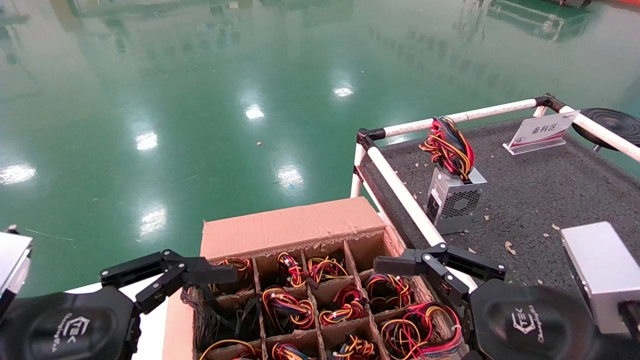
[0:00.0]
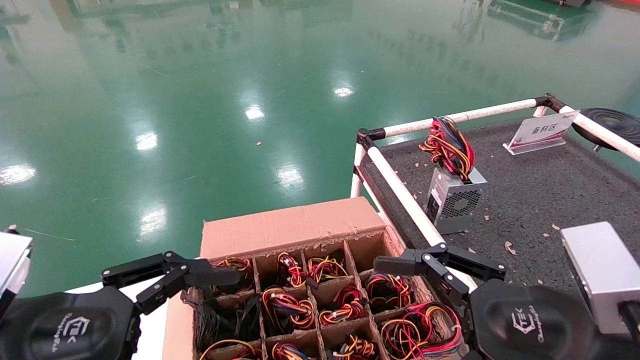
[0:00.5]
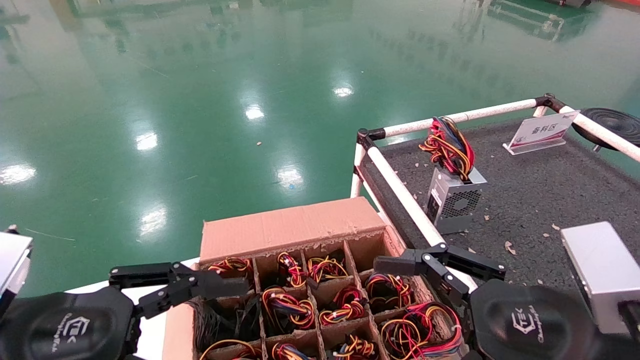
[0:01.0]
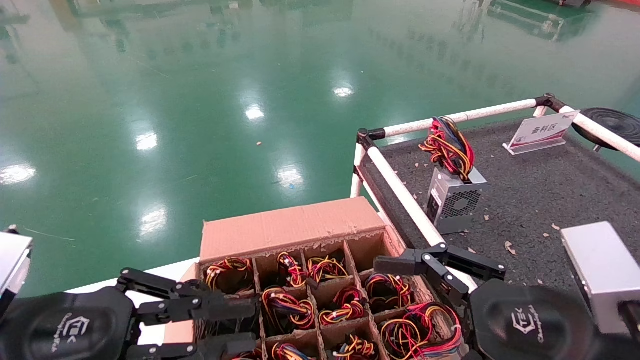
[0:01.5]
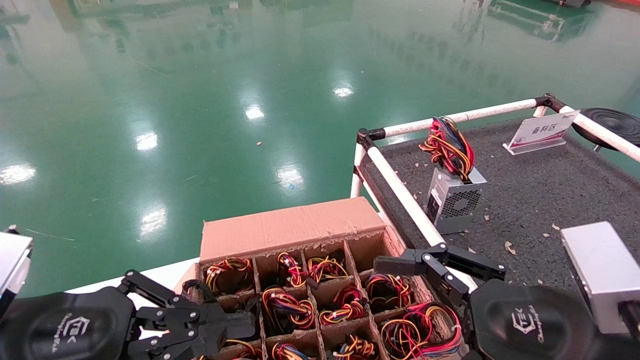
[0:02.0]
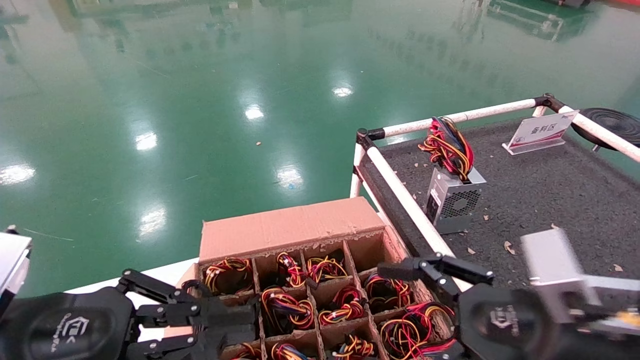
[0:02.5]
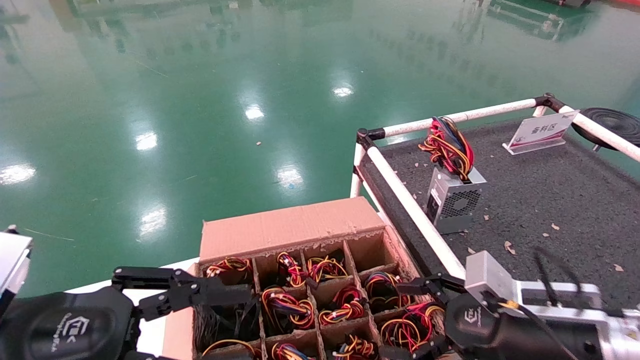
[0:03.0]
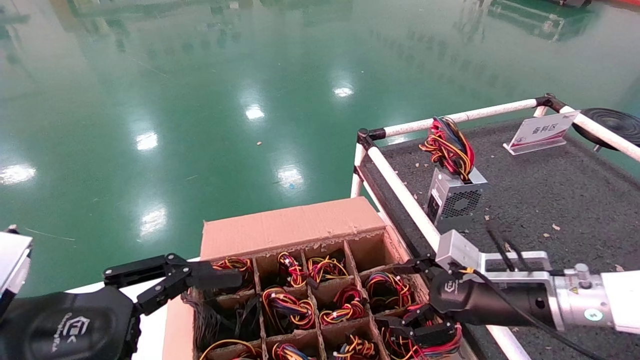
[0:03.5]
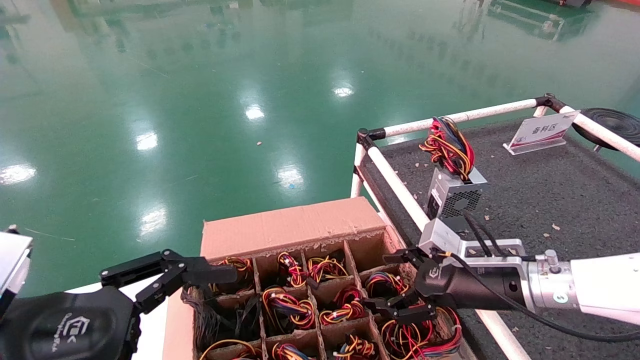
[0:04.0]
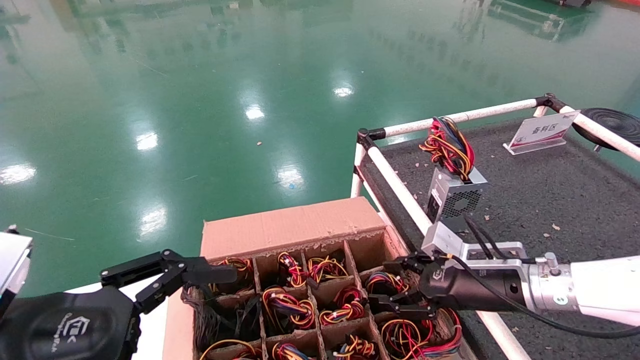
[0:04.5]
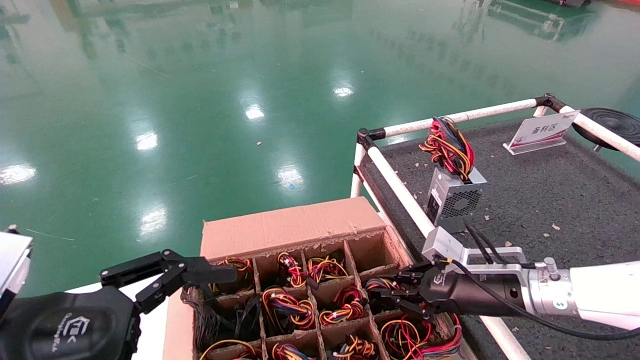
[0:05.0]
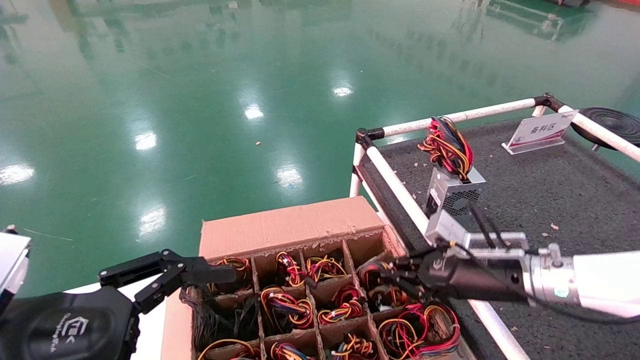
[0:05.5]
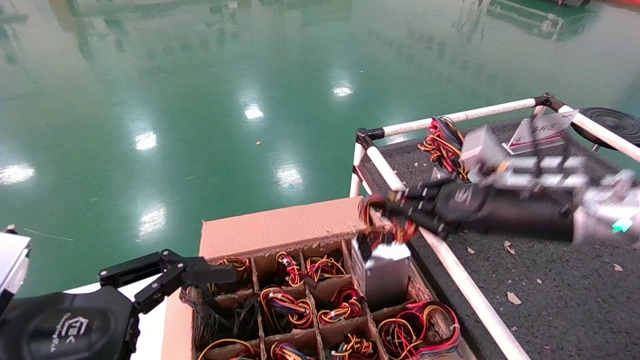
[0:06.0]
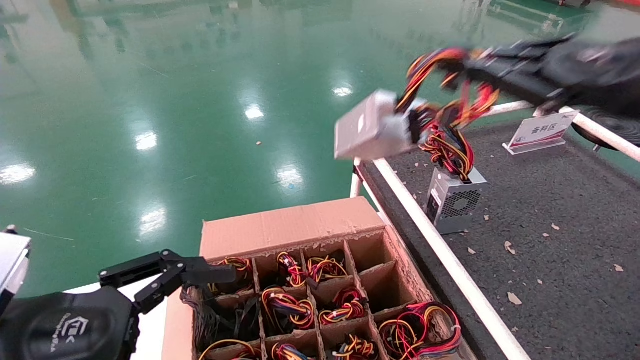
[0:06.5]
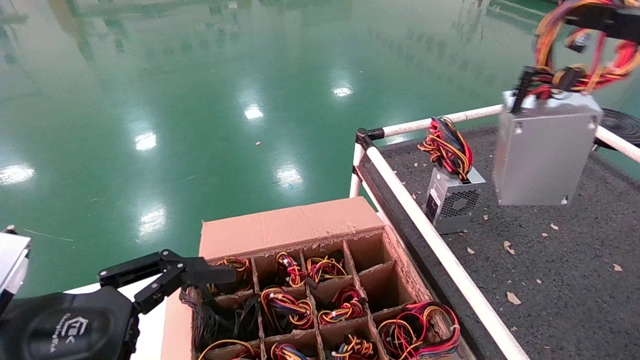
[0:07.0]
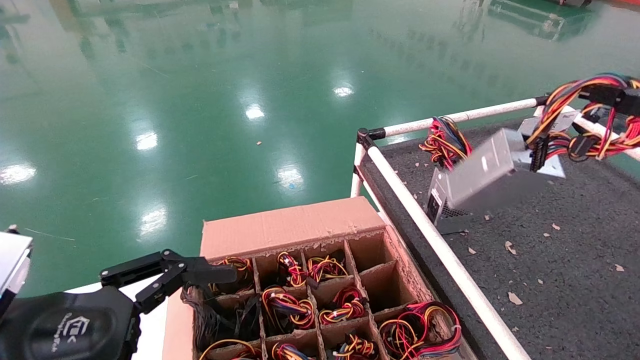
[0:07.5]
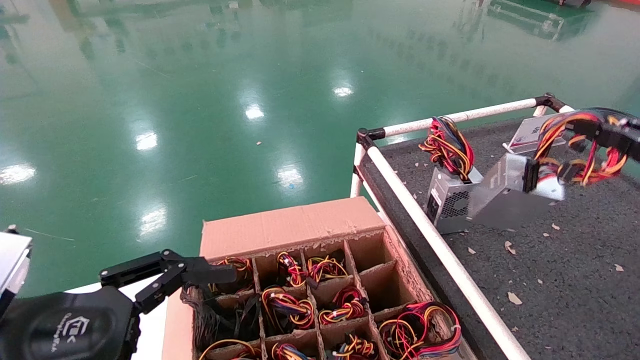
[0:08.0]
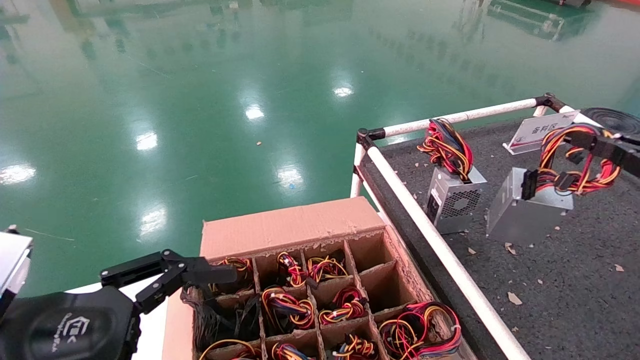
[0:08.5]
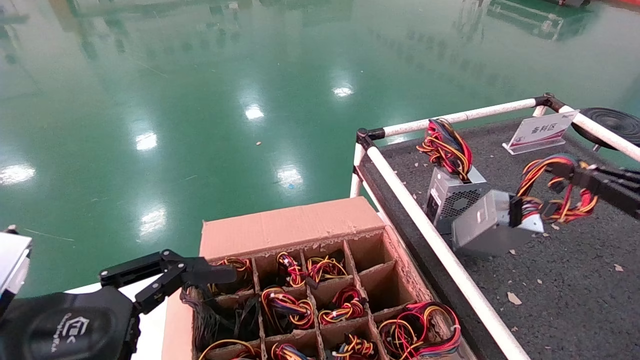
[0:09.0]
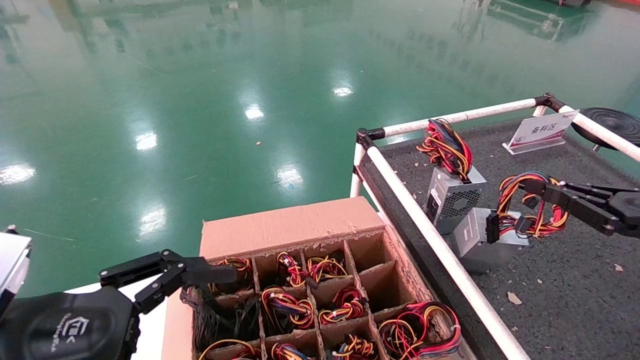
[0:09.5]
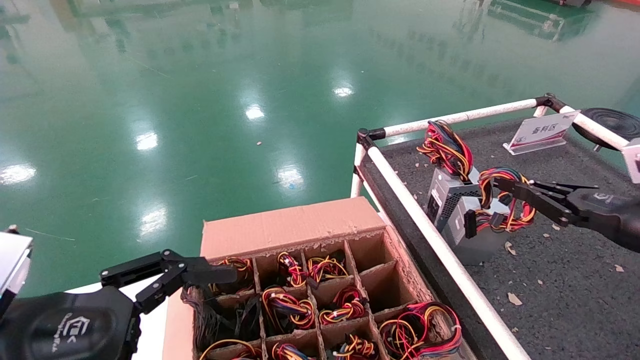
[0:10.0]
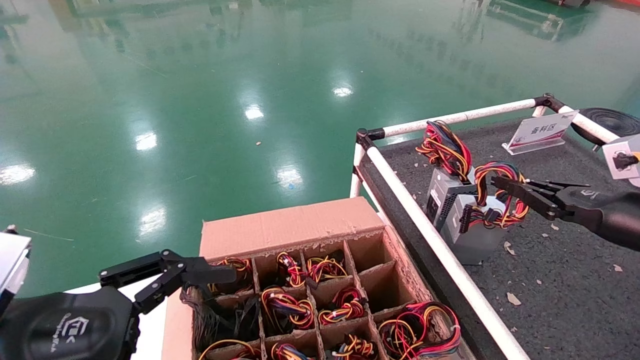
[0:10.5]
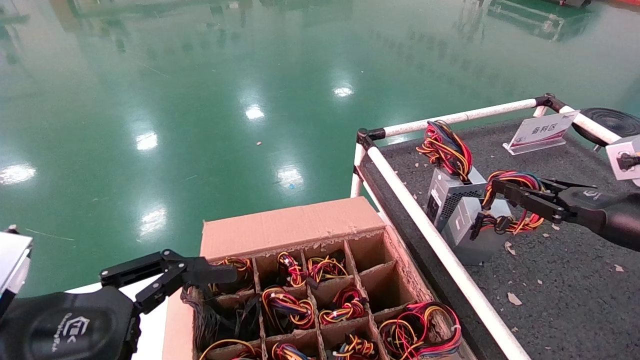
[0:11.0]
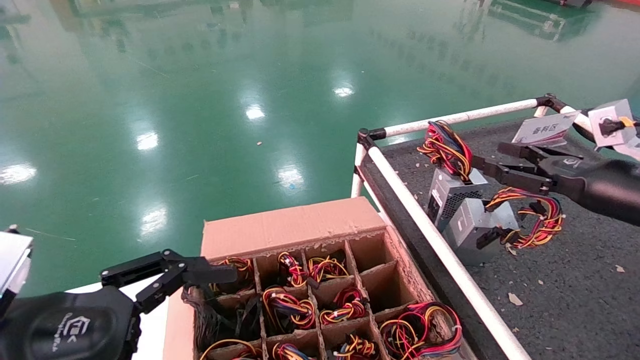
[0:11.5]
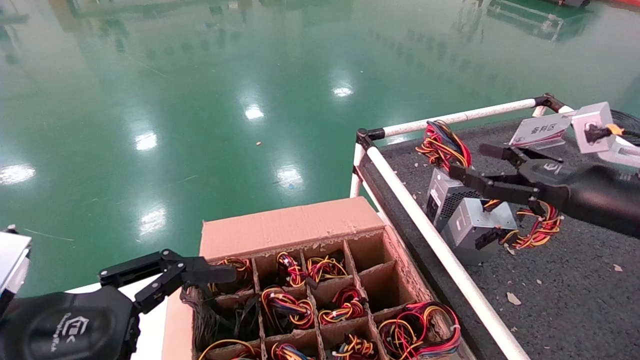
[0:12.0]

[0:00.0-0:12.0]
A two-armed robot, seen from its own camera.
Step, 0:03.0 to 0:05.5: Grab and lift the power supply from the large box.
Step, 0:06.0 to 0:11.0: Place the power supply on the operating table.
0:00.0 to 0:02.0: The left gripper closes up.
0:02.0 to 0:04.0: The left gripper opens up, while the right gripper heads forward, covering some 20 cm.
0:04.0 to 0:06.0: The right gripper moves upward, some 15 cm, and closes.
0:06.0 to 0:08.0: The right gripper travels to the right and backward by approximately 20 cm.
0:08.0 to 0:10.0: The right gripper goes approximately 10 cm forward and downward.
0:10.0 to 0:12.0: The right gripper moves to the left, roughly 5 cm, and opens.

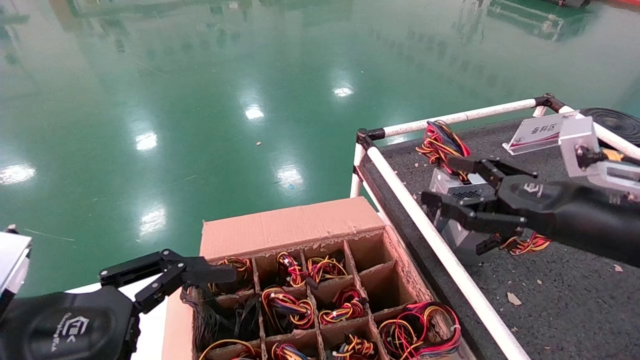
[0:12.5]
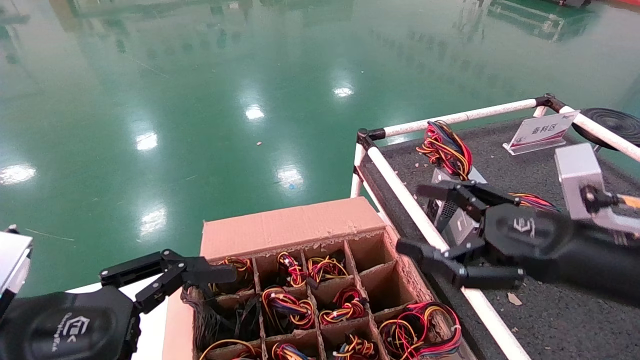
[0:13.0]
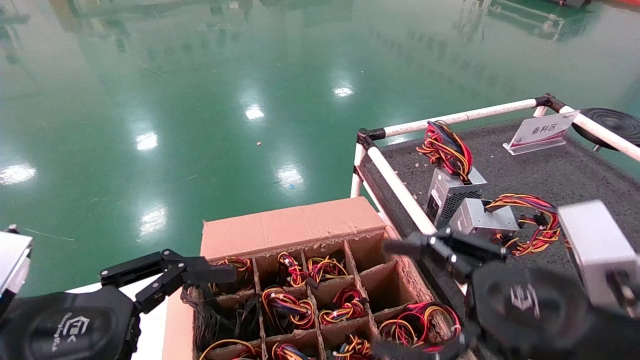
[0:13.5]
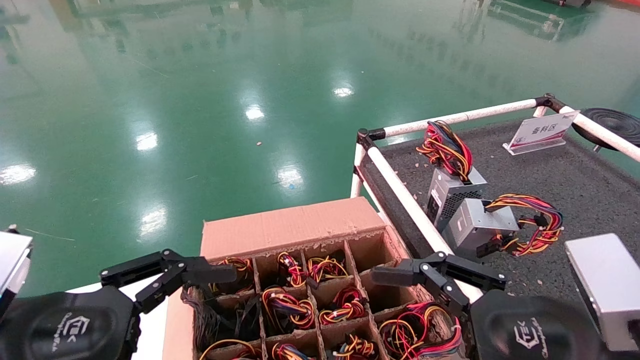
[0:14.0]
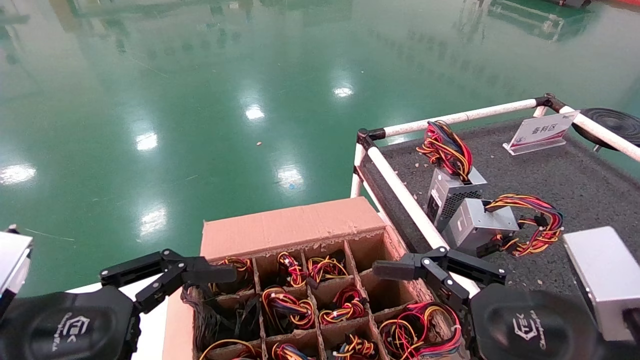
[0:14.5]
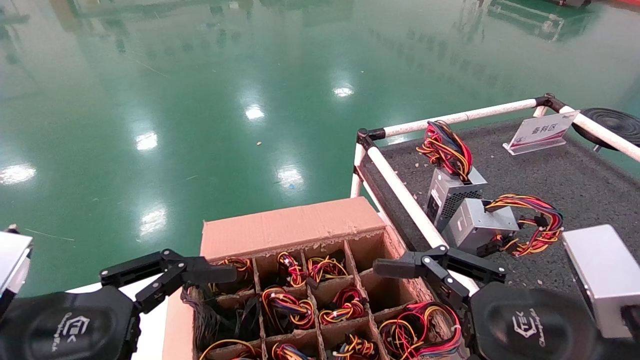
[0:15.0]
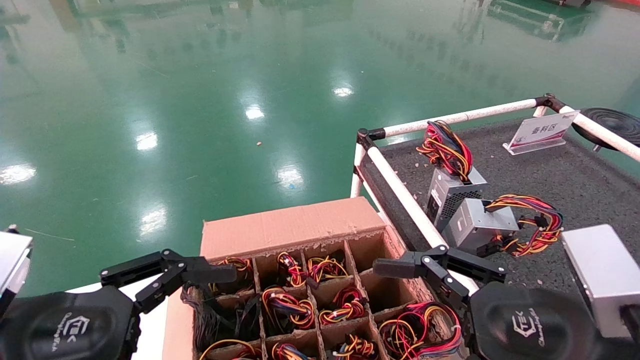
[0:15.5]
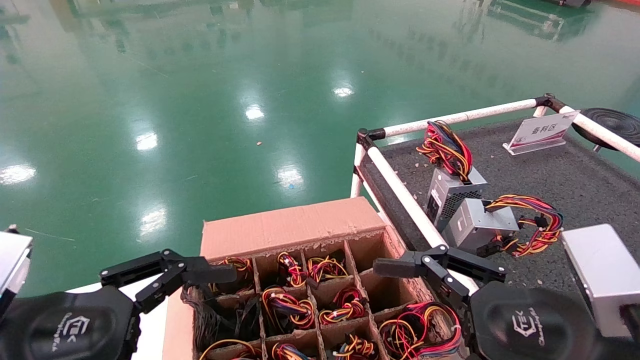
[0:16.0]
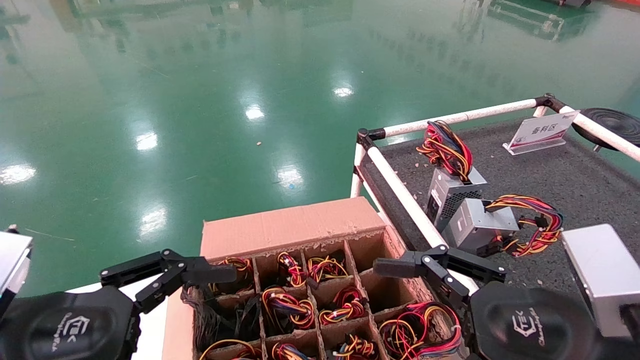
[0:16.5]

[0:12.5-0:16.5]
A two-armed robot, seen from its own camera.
0:12.5 to 0:14.5: The right gripper moves backward and to the left, some 15 cm.
0:14.5 to 0:16.5: Both grippers stay about where they are.

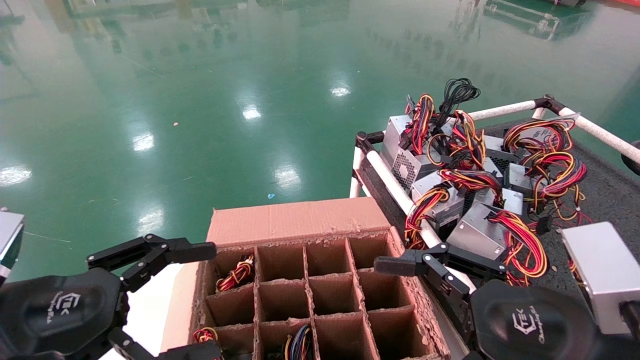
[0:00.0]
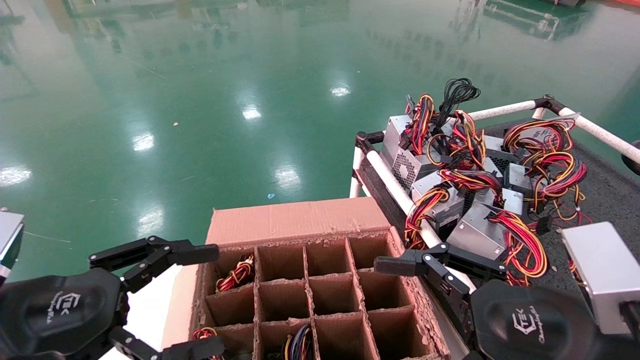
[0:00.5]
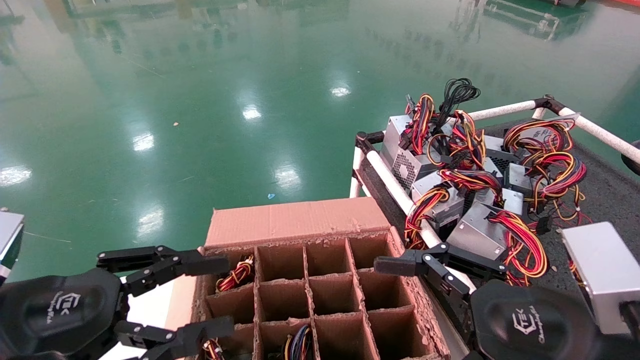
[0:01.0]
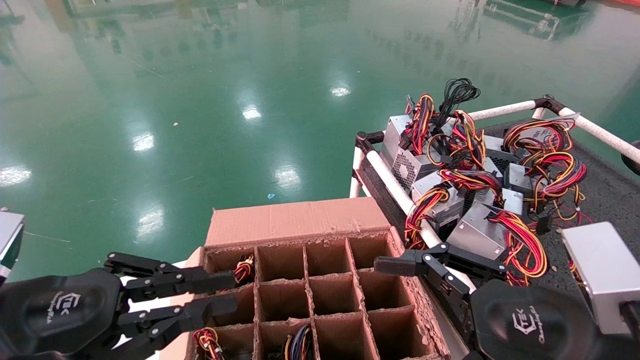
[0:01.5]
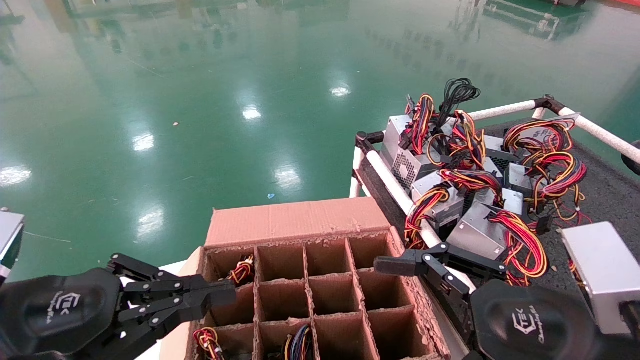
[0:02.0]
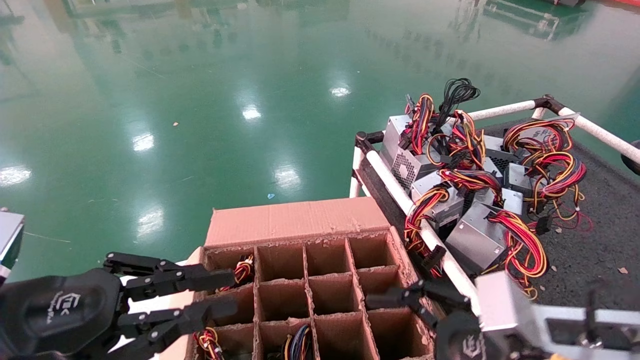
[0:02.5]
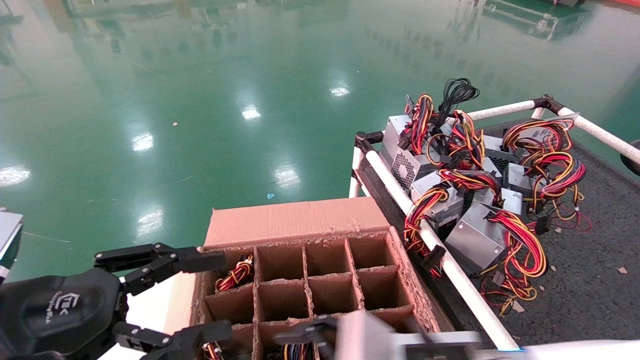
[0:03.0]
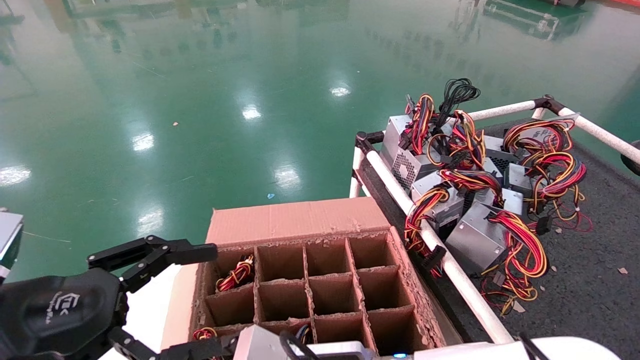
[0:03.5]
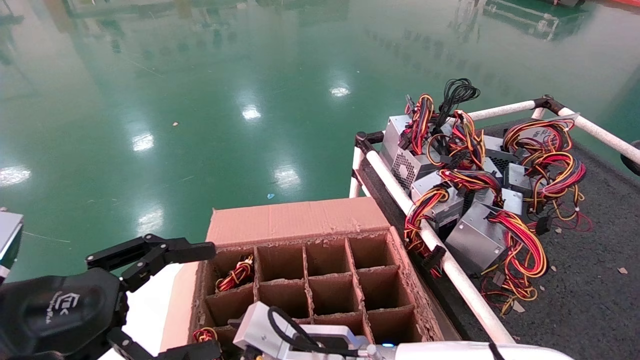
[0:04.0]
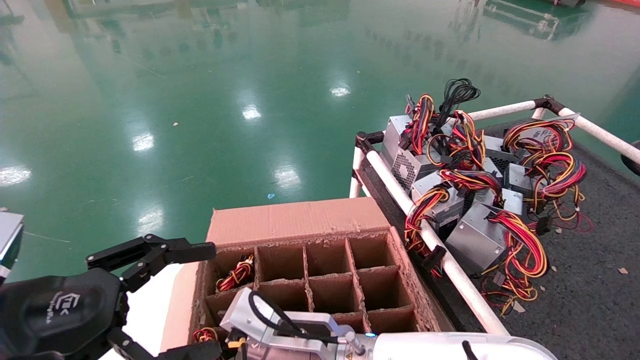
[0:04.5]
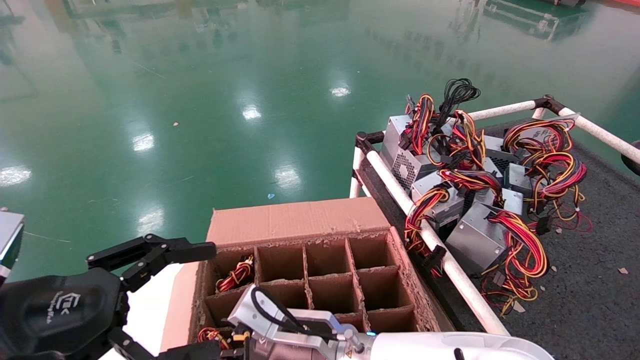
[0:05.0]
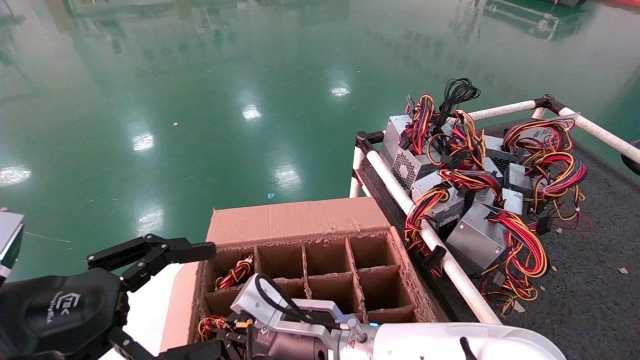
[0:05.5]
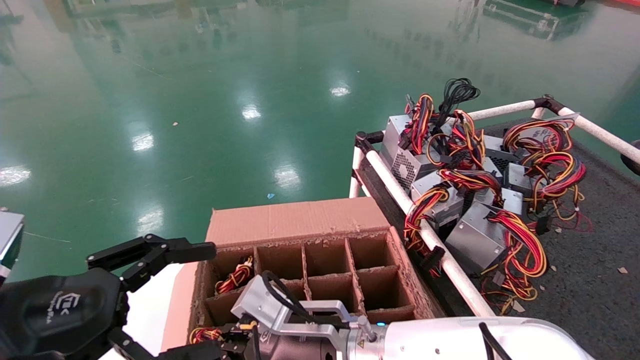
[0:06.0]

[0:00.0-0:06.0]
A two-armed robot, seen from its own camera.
Step, 0:02.5 to 0:05.5: Grab and lift the power supply from the large box.
0:00.0 to 0:02.0: The left gripper closes.
0:02.0 to 0:04.0: The left gripper opens. The right gripper moves to the left, downward and forward, roughly 30 cm.
0:04.0 to 0:06.0: The right gripper closes.
